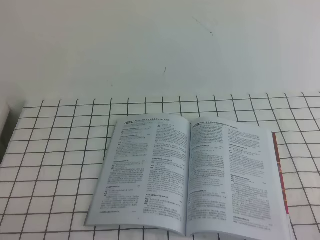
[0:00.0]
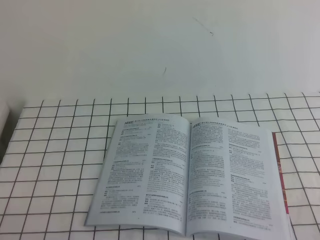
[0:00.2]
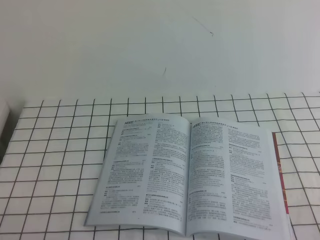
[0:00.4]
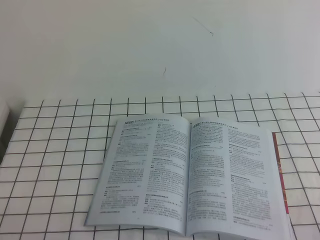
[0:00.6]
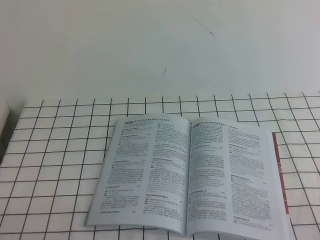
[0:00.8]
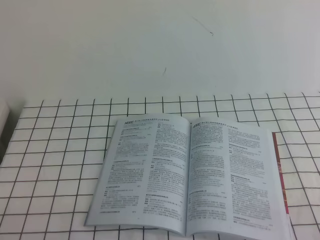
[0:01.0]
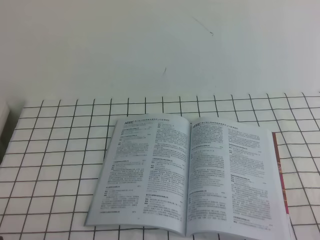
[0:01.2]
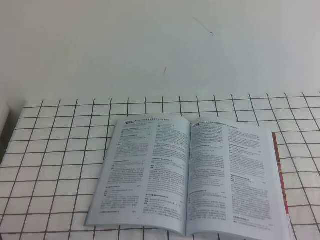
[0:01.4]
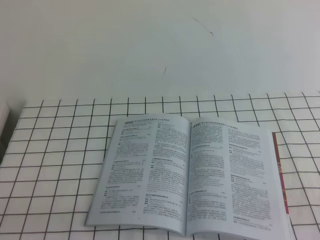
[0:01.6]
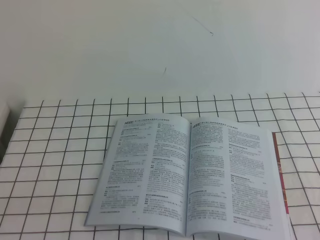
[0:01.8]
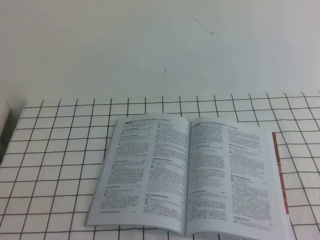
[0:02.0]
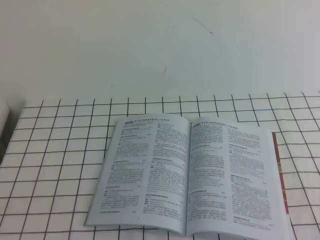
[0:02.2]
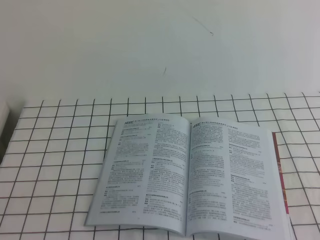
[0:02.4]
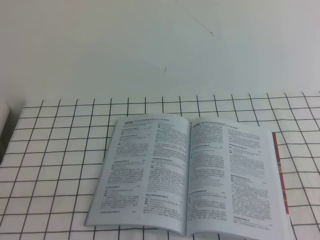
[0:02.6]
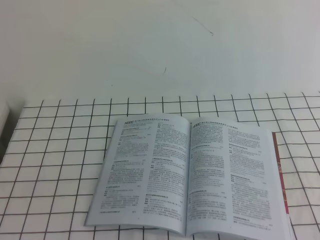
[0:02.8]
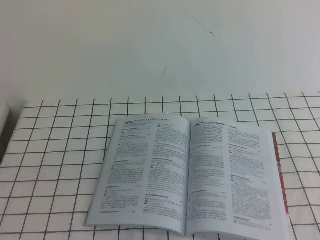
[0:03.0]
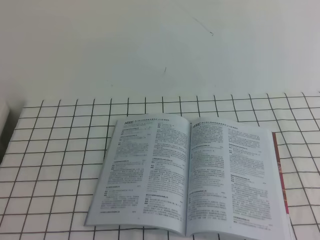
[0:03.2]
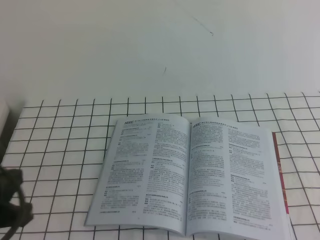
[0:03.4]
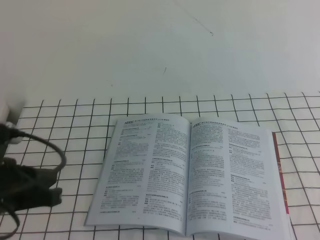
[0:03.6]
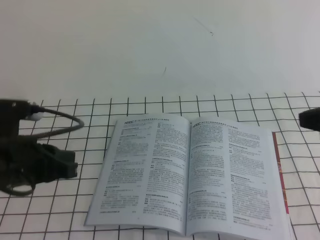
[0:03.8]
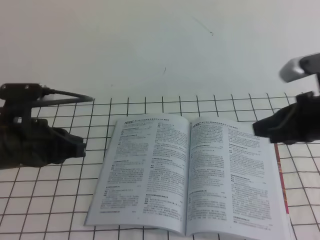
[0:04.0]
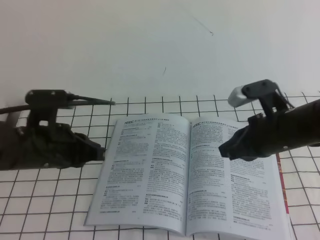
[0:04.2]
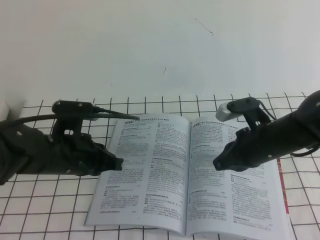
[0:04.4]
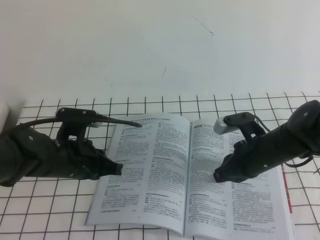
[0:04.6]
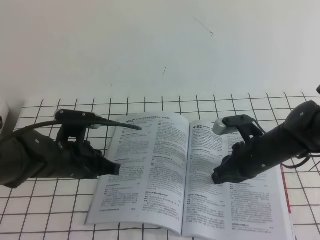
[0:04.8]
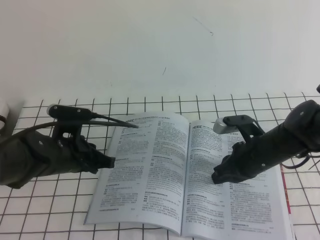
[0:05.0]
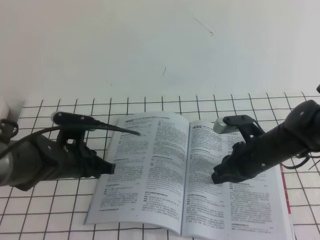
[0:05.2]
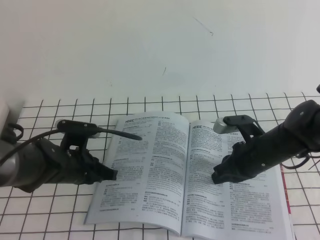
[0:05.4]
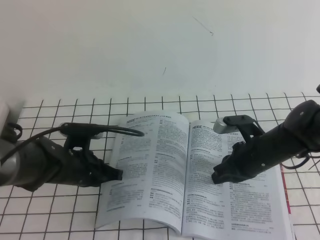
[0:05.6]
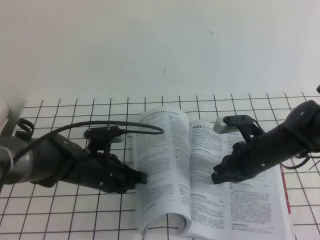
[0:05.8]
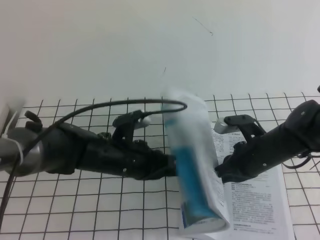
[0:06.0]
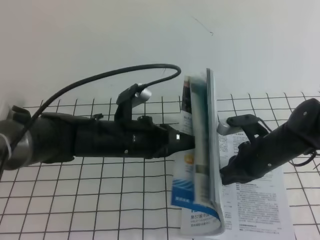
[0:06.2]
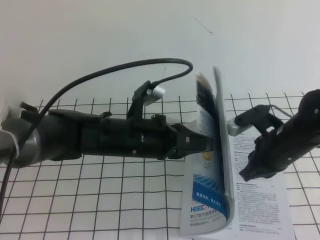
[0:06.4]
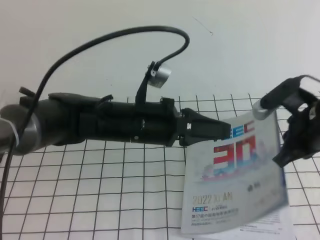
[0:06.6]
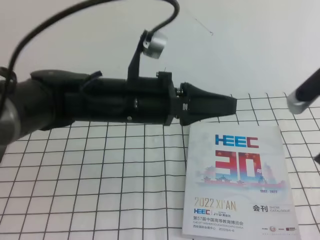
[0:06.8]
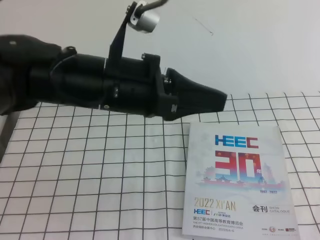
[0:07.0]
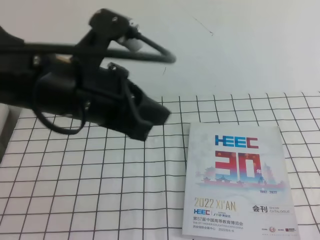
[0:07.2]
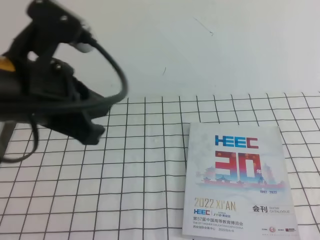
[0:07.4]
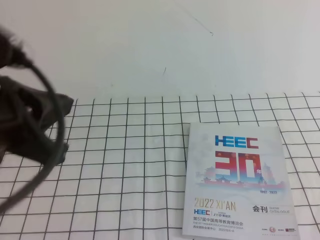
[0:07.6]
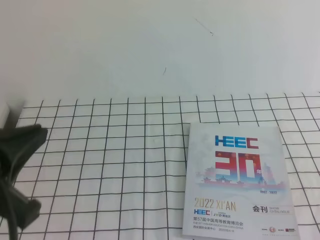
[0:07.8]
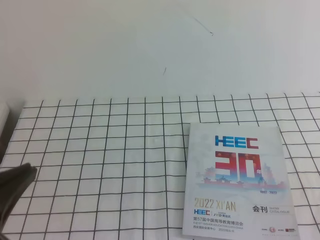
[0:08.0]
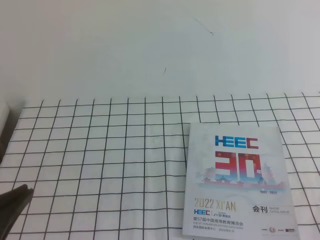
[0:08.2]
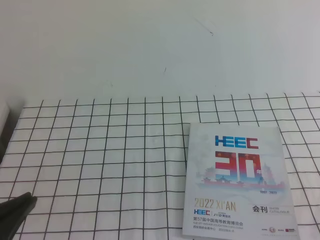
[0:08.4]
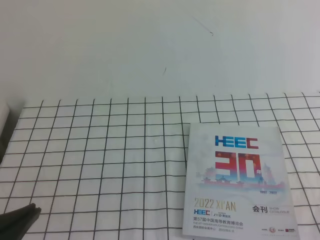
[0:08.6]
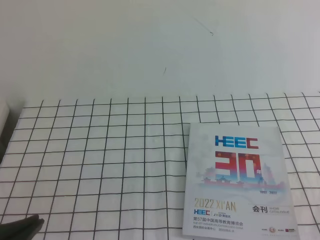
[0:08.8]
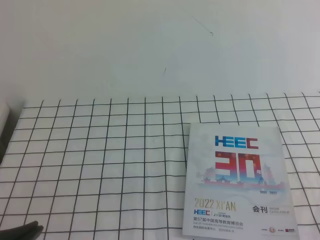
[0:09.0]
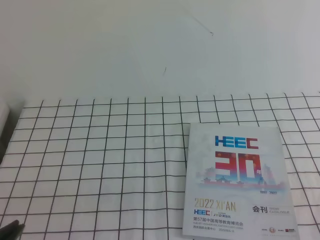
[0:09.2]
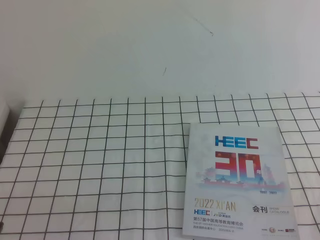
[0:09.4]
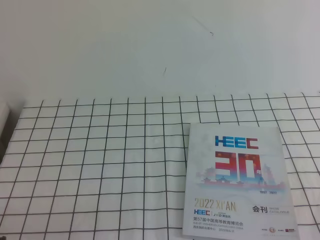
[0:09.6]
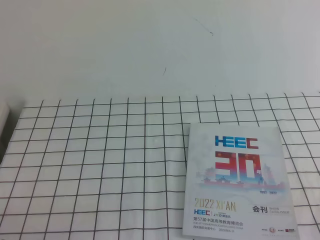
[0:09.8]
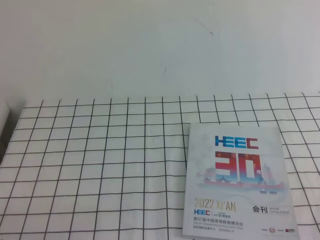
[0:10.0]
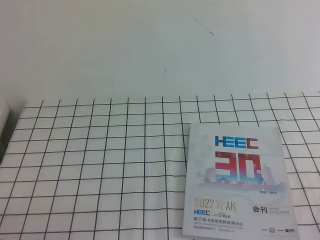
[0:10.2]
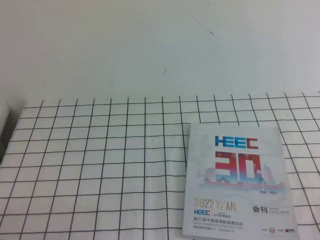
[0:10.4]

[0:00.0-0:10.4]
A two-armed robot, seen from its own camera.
Task of the whole recording: on the white tablecloth, hold the book with one hand and close it with the other.
0:03.0 to 0:04.4: The left gripper goes some 25 cm forward; the right gripper travels forward, downward and to the left by roughly 35 cm.
0:04.4 to 0:06.0: The left gripper shifts approximately 10 cm to the right and downward. Meanwhile the right gripper moves downward, approximately 5 cm.
0:06.0 to 0:07.4: The right gripper goes some 35 cm upward, backward and to the right. The left gripper is displaced upward and backward by roughly 25 cm.
0:07.4 to 0:09.0: The right gripper travels downward and backward by about 15 cm, while the left gripper travels backward, downward and to the left by approximately 20 cm.
0:09.0 to 0:10.4: The left gripper is displaced downward by roughly 10 cm.
